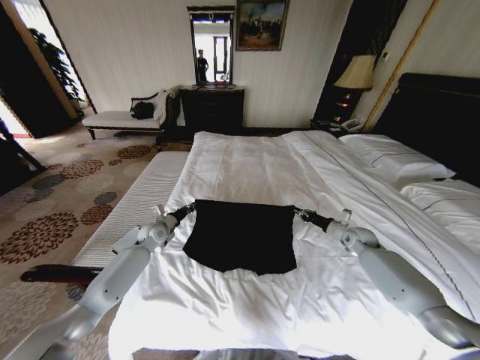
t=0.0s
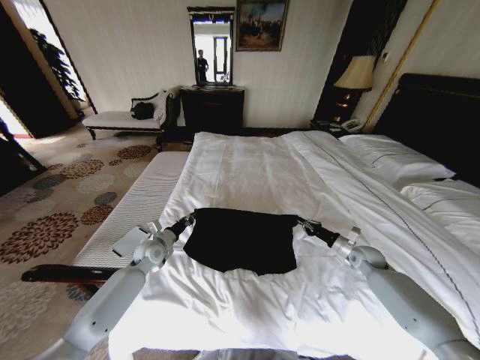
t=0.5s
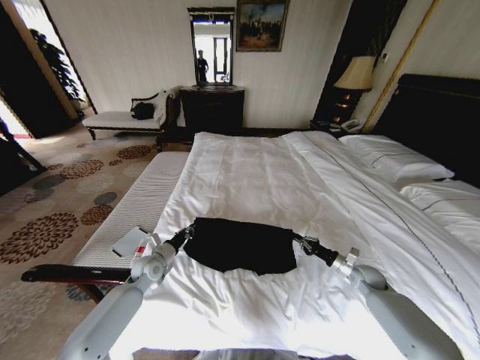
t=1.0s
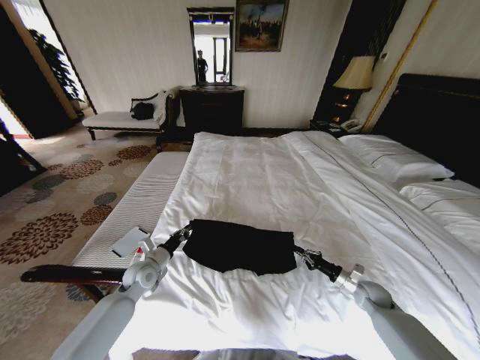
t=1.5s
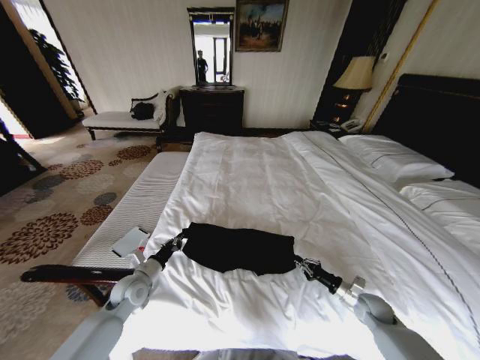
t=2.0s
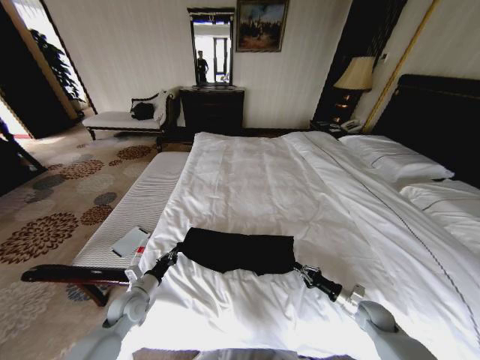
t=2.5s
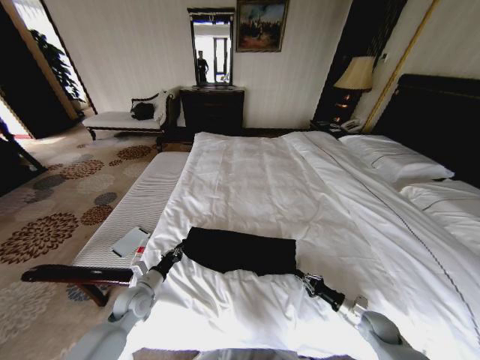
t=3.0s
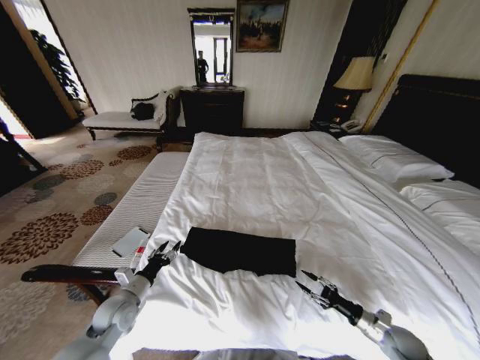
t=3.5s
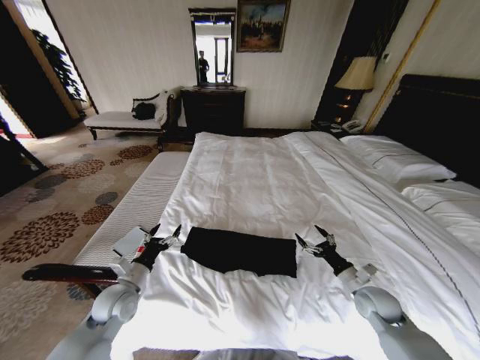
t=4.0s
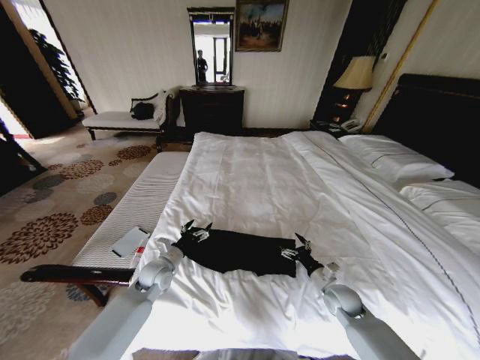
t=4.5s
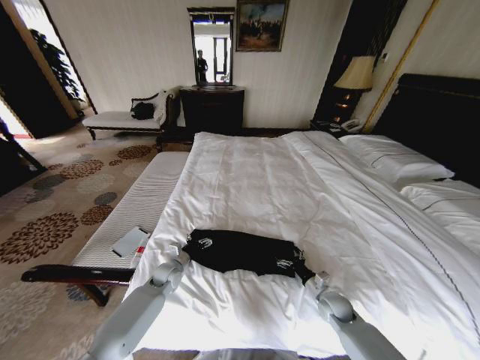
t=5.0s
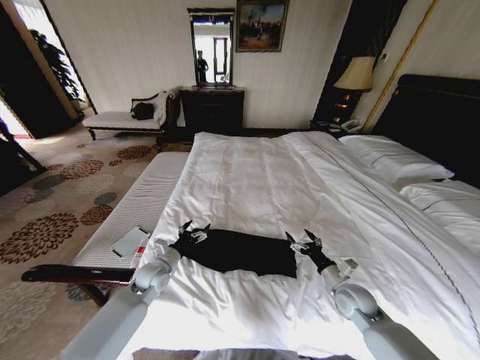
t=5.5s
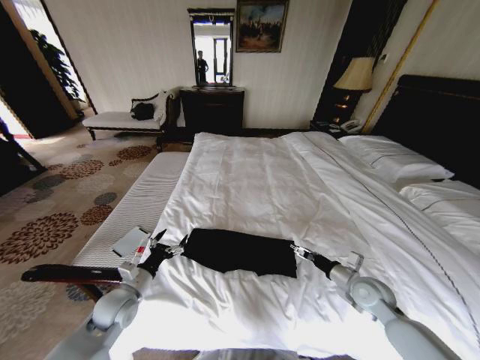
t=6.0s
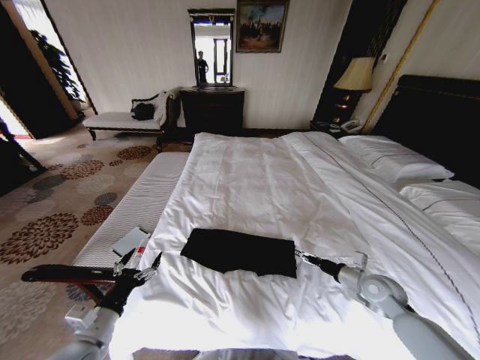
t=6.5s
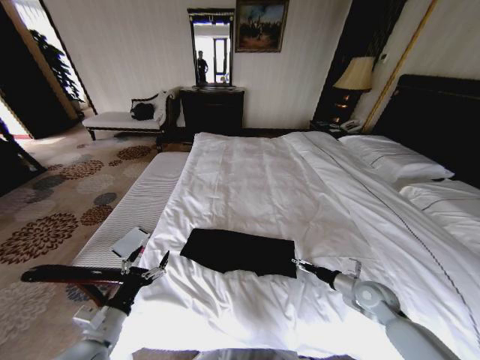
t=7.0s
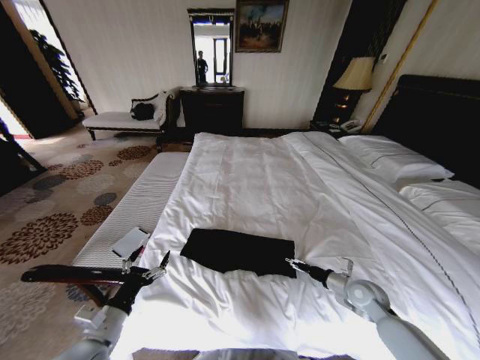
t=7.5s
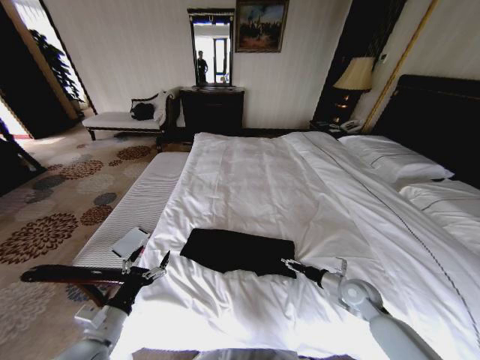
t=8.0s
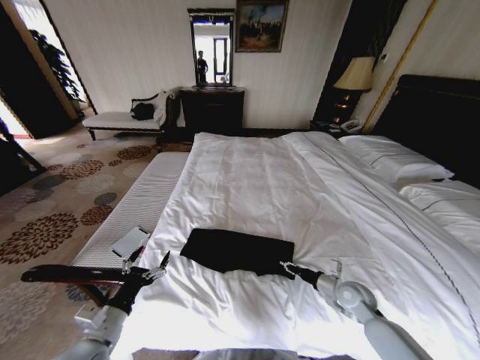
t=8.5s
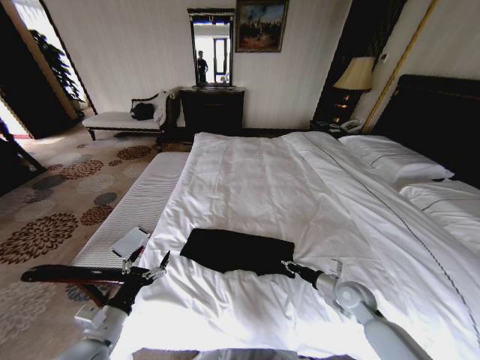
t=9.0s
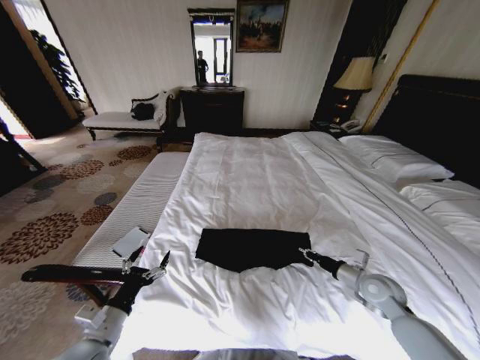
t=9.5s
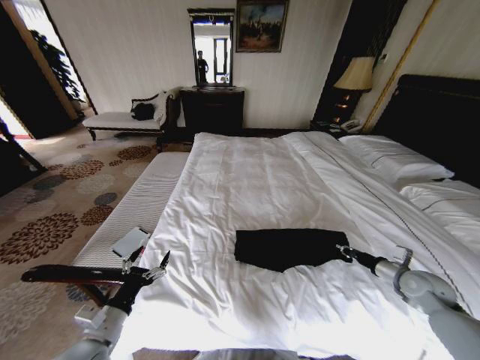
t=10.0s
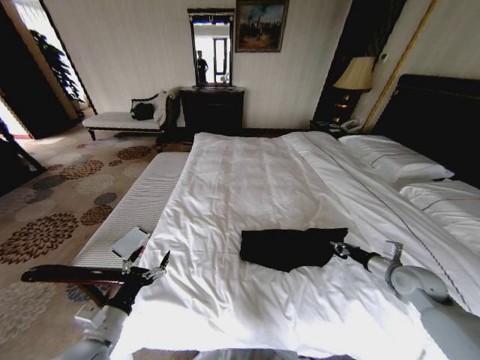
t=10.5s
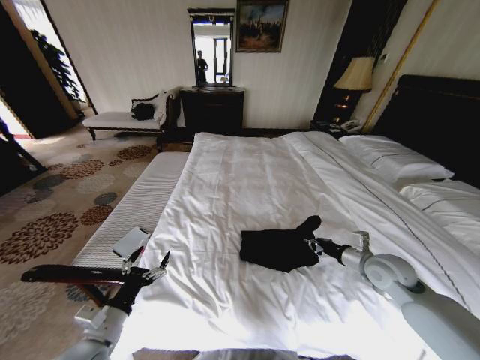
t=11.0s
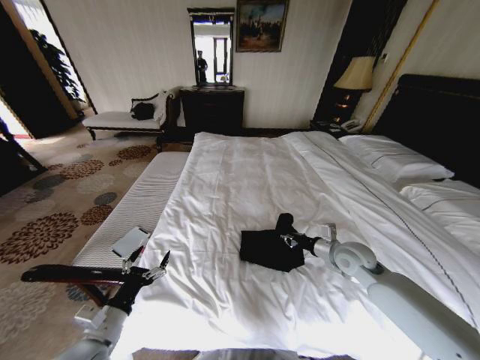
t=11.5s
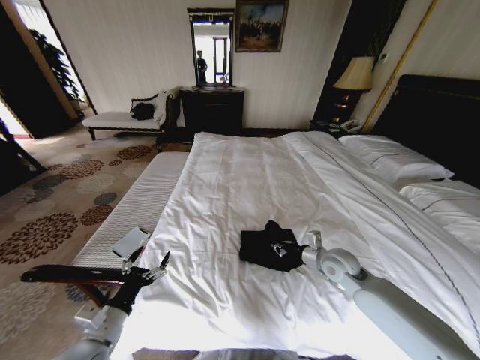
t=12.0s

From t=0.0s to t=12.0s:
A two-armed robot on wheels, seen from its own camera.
Task of the whole recording: Fold the clothes on the bed.
From t=0.0s to t=2.0s: The right gripper is displaced backward and downward by roughly 20 cm. Meanwhile the left gripper heads backward, covering about 20 cm.
From t=2.0s to t=4.0s: The left gripper shifts by approximately 5 cm, and opens. The right gripper is displaced upward by approximately 10 cm, and opens.
From t=4.0s to t=6.0s: The right gripper travels downward and back again, approximately 10 cm each way. Meanwhile the left gripper reaches roughly 10 cm forward, then returns.
From t=6.0s to t=8.0s: The left gripper moves backward, about 10 cm.
From t=8.0s to t=10.0s: The right gripper heads to the right and upward, covering about 15 cm, and closes its fingers.
From t=10.0s to t=12.0s: The right gripper heads to the left, covering some 20 cm.

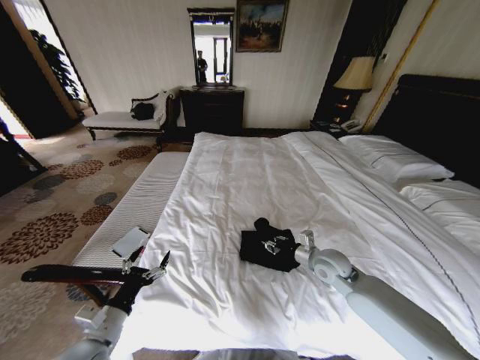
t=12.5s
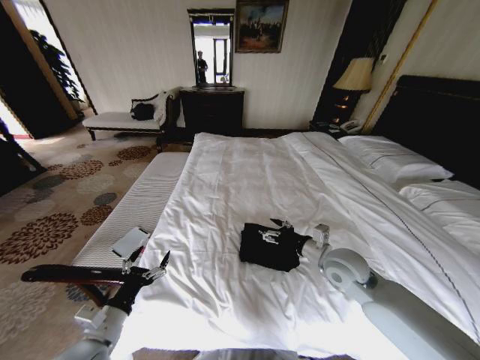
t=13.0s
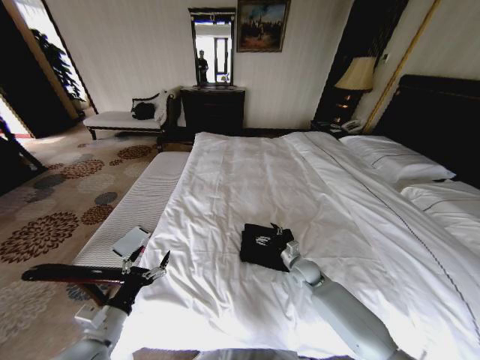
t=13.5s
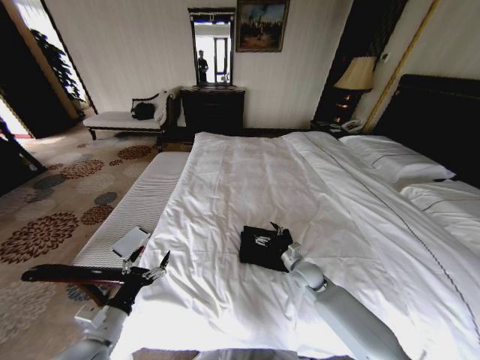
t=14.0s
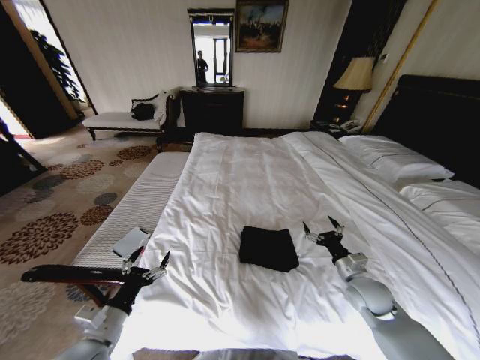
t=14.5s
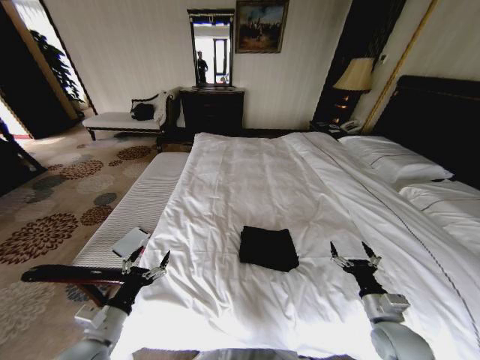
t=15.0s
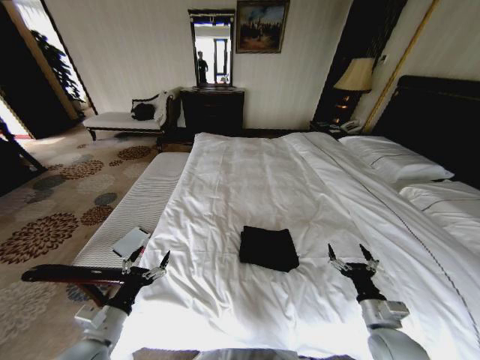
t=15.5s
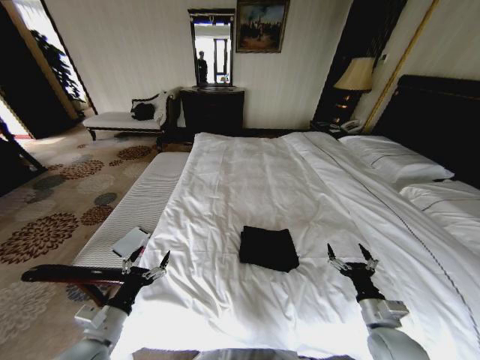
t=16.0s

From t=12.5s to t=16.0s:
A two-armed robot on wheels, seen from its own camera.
Task of the whole recording: Fold the clothes on the bed.
From t=12.5s to t=14.5s: The right gripper moves up and down over some 15 cm, changing direction 2 times, and opens up.
From t=14.5s to t=16.0s: The right gripper heads backward, covering roughly 10 cm.

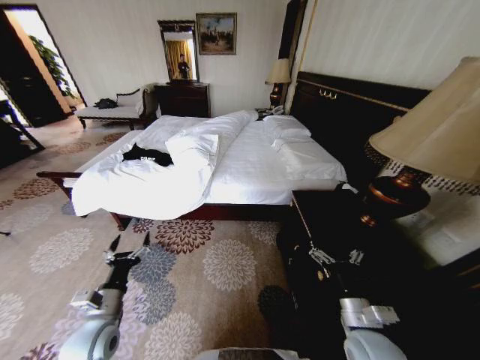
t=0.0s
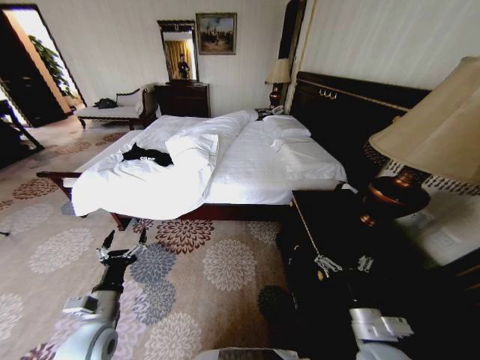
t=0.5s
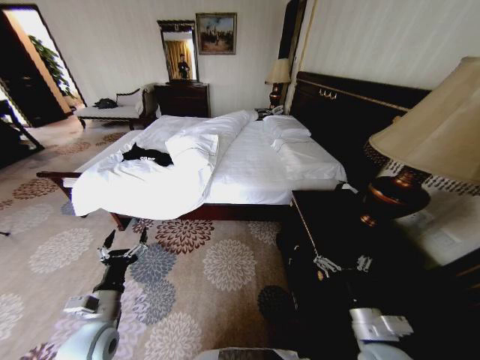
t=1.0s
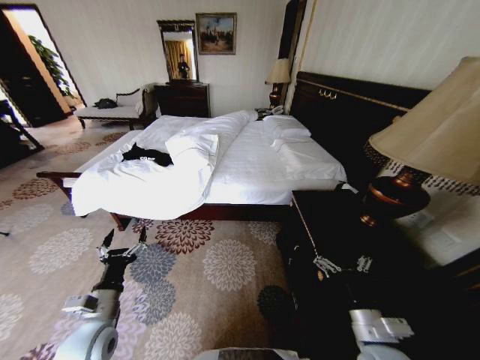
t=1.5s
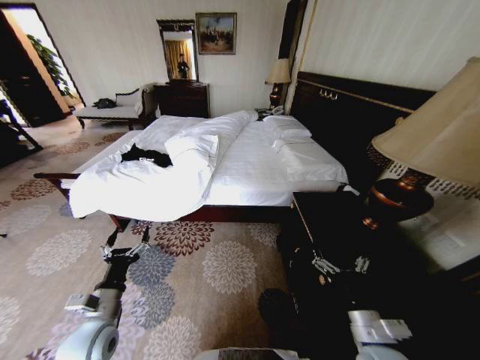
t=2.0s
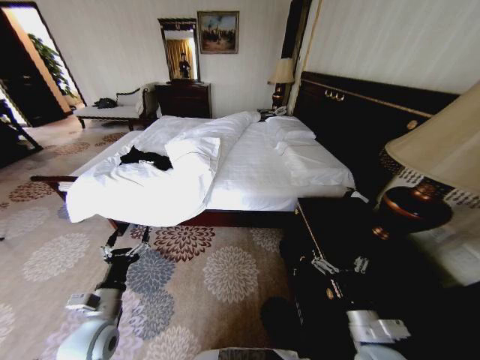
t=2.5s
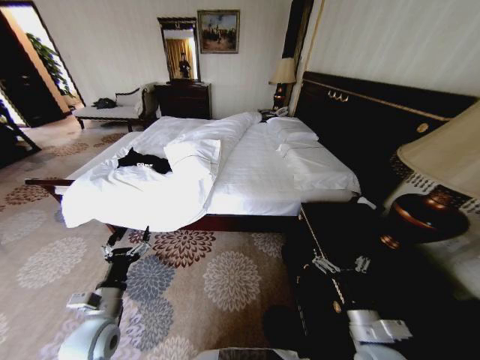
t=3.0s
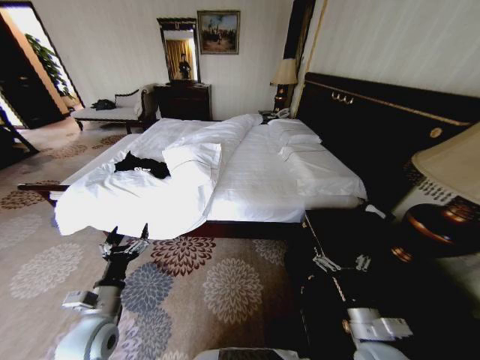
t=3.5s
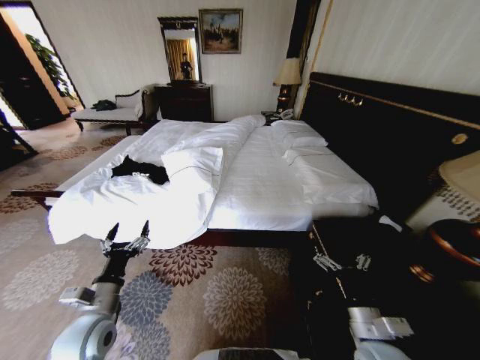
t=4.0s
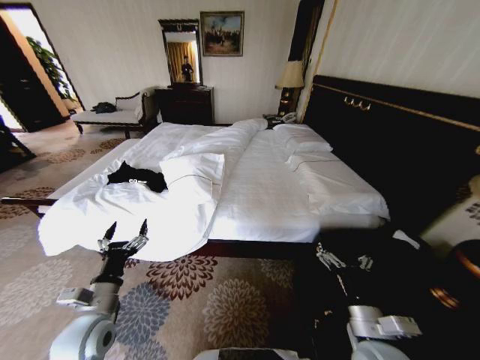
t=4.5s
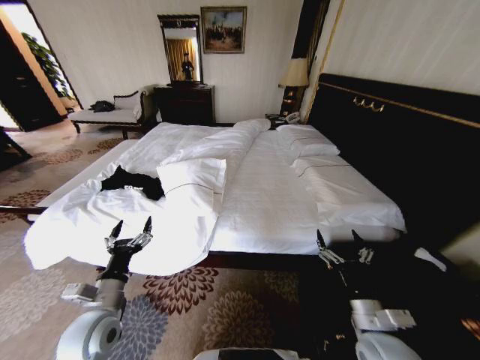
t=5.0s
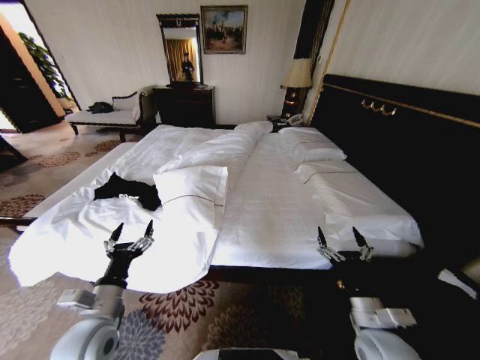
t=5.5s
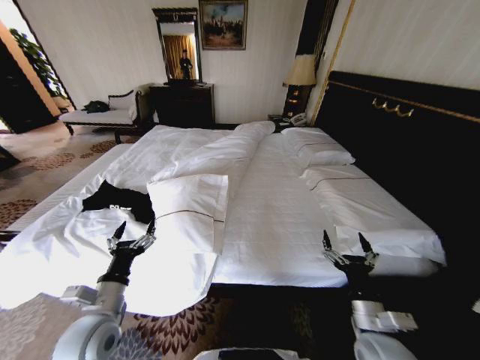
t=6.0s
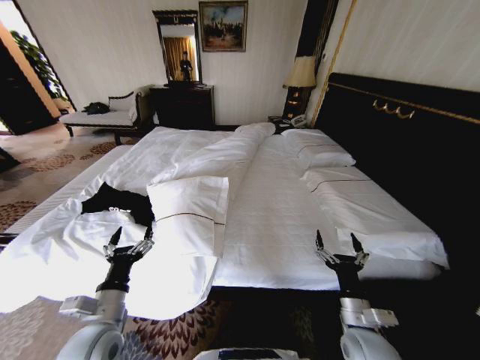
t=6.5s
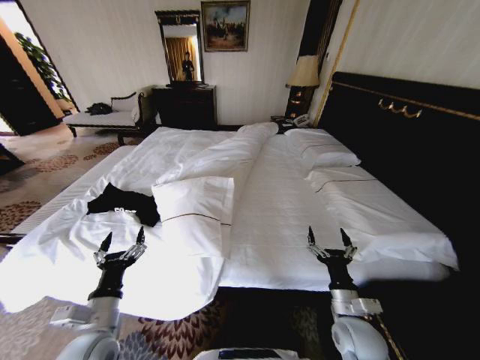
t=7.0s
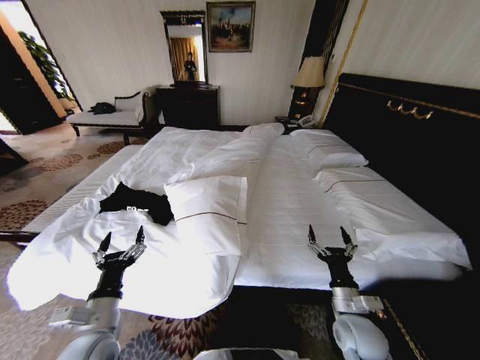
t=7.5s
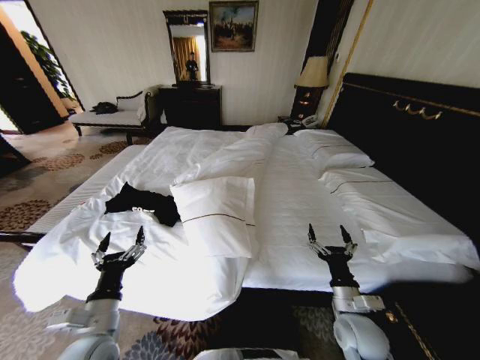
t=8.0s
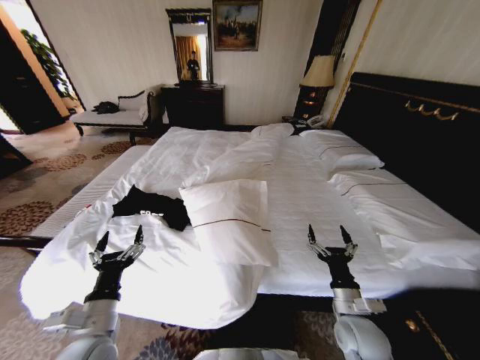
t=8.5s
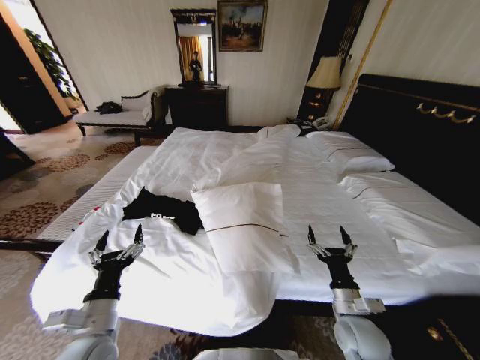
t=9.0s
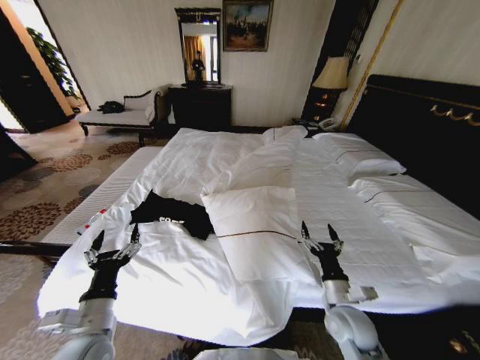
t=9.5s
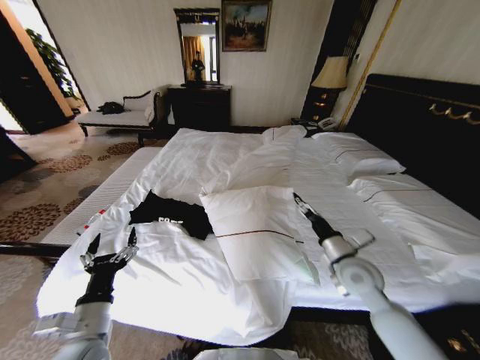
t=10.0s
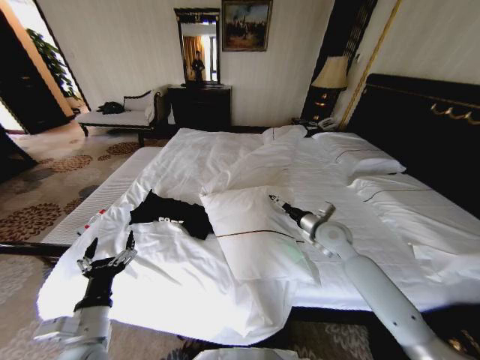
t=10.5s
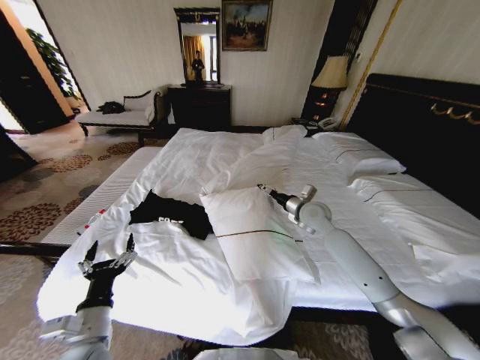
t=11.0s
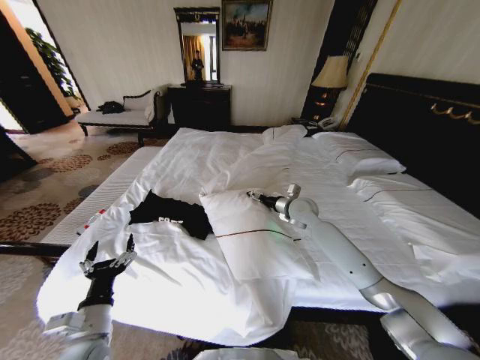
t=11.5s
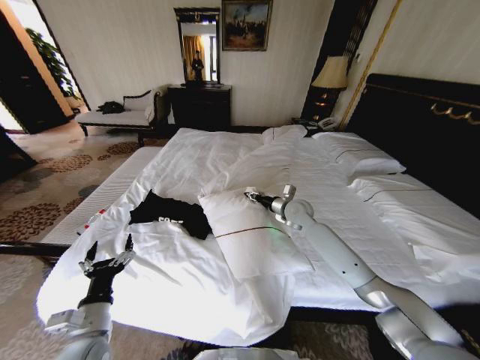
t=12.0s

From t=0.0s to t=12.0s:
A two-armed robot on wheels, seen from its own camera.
Task of the whole recording: Fold the clothes on the bed.
From t=8.0s to t=10.0s: The right gripper travels forward and upward by some 15 cm.
From t=10.0s to t=12.0s: The right gripper shifts approximately 20 cm forward, and closes up.
